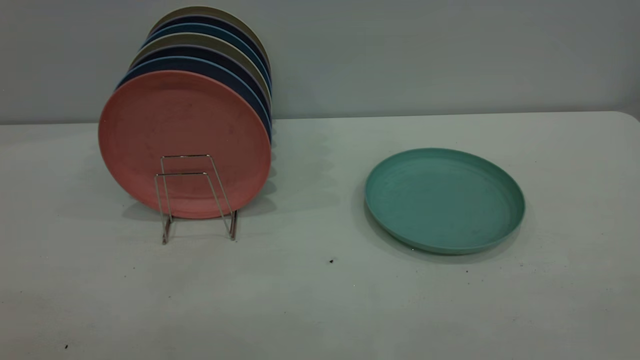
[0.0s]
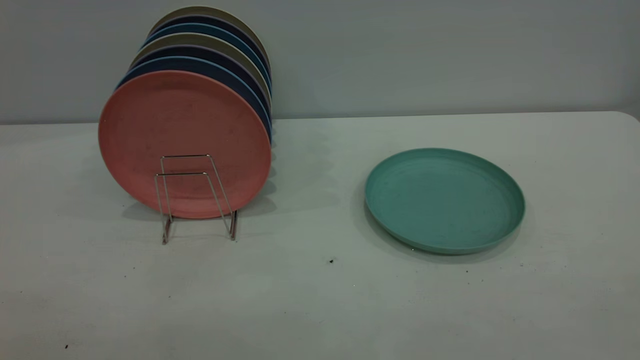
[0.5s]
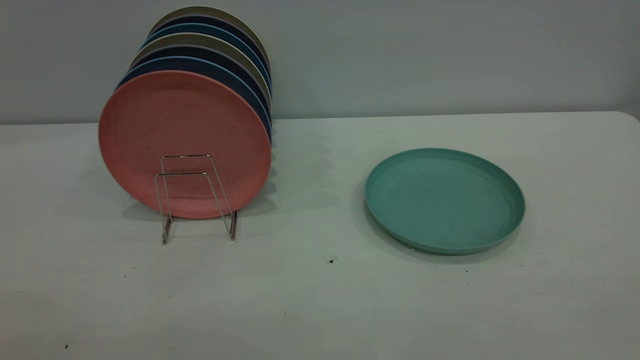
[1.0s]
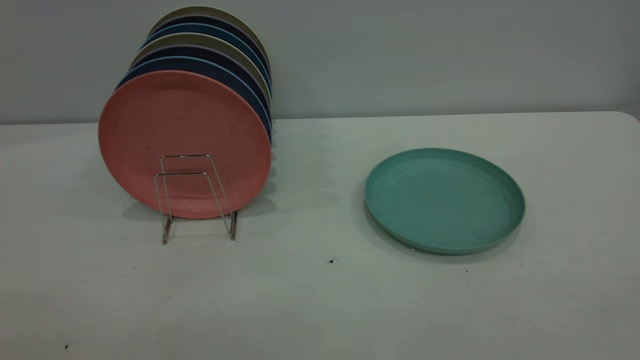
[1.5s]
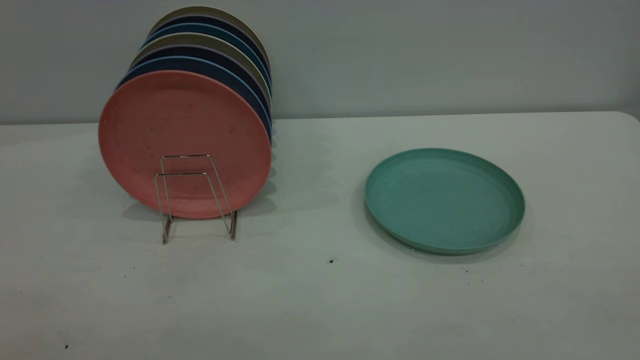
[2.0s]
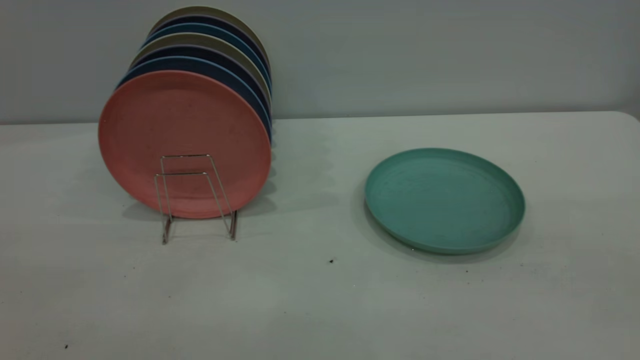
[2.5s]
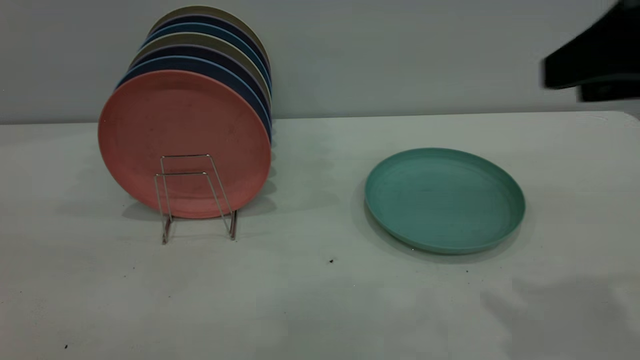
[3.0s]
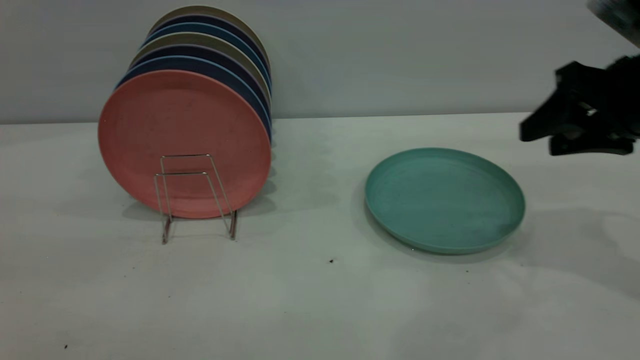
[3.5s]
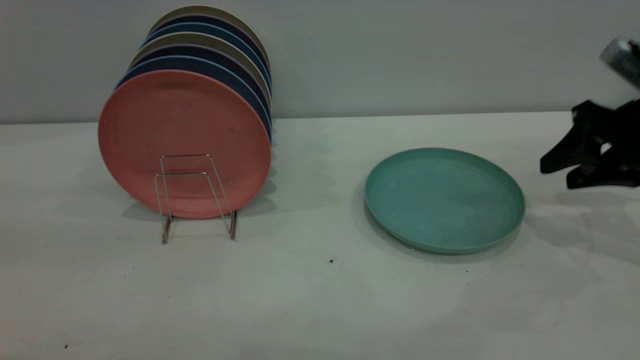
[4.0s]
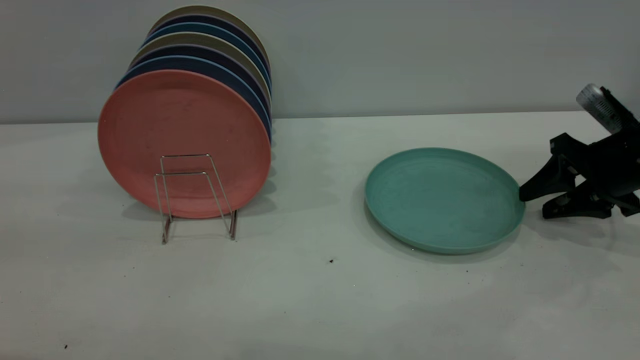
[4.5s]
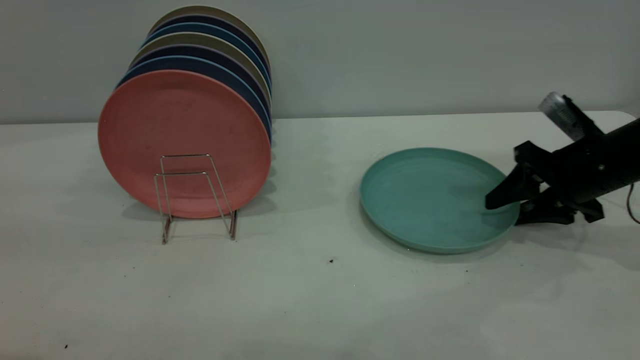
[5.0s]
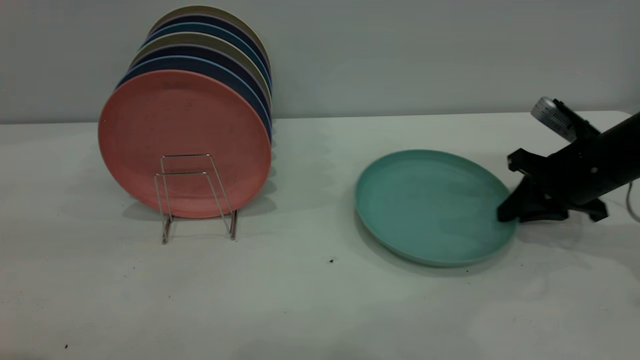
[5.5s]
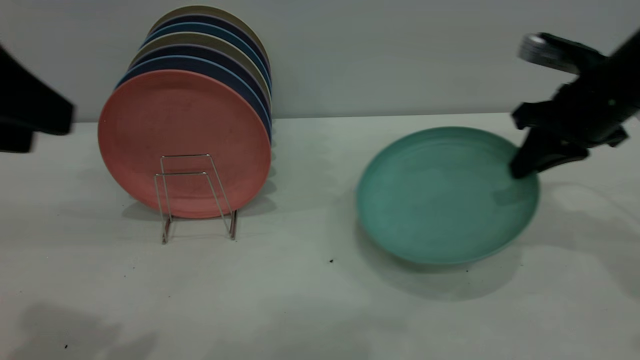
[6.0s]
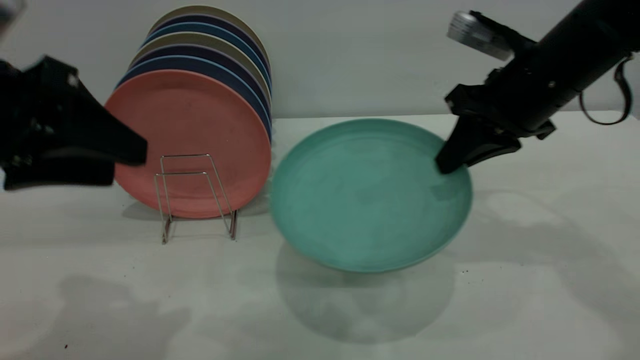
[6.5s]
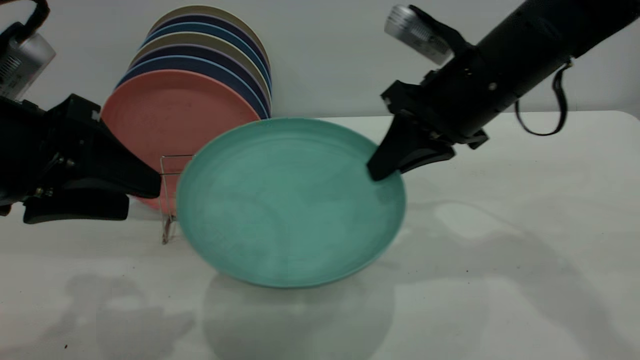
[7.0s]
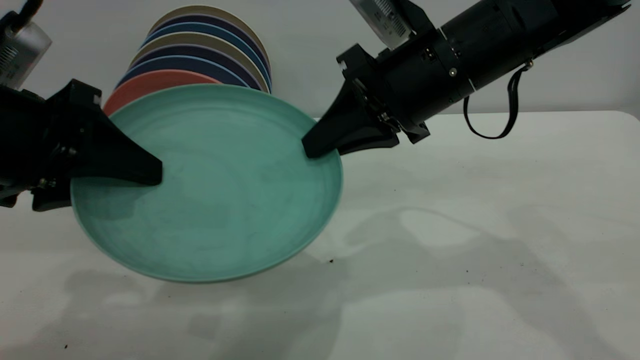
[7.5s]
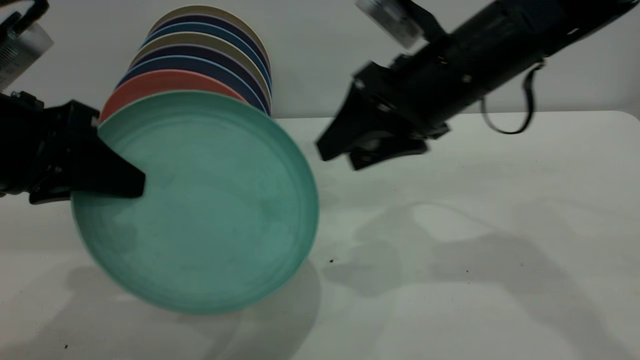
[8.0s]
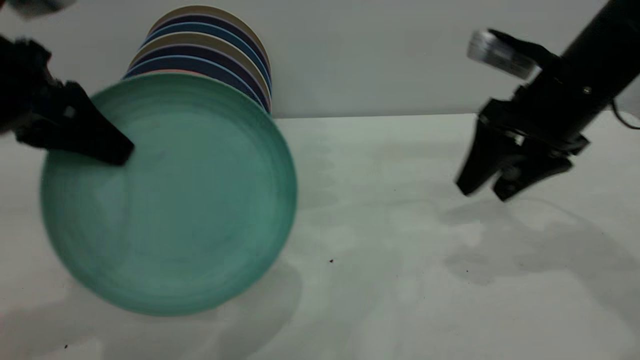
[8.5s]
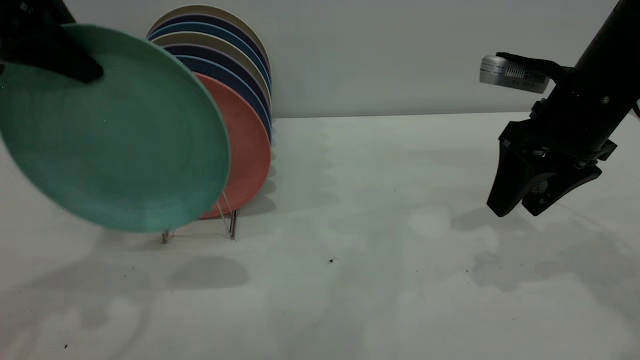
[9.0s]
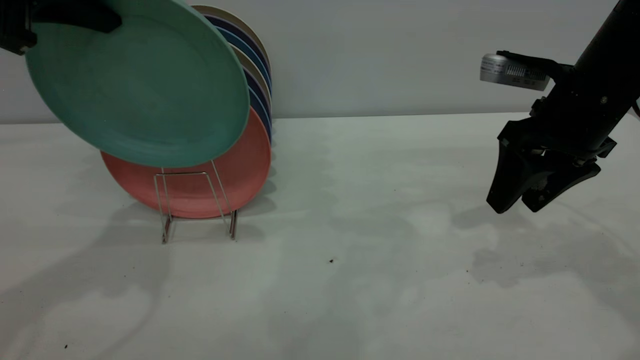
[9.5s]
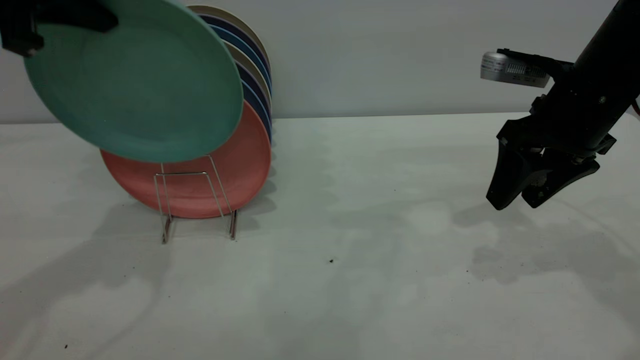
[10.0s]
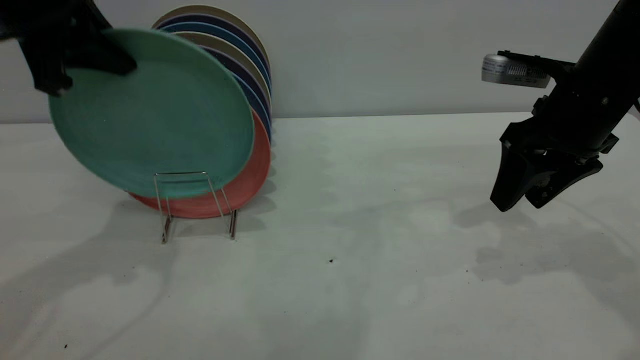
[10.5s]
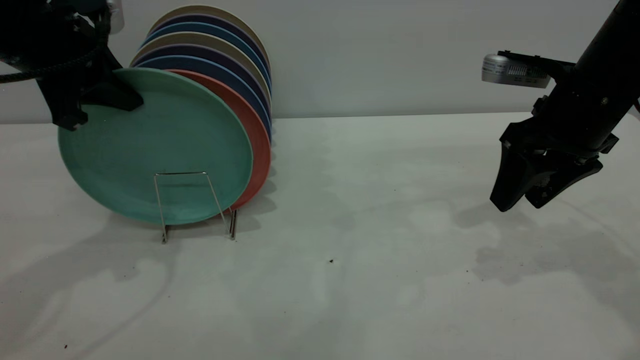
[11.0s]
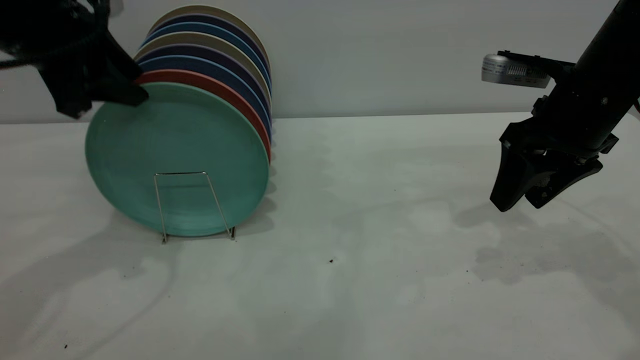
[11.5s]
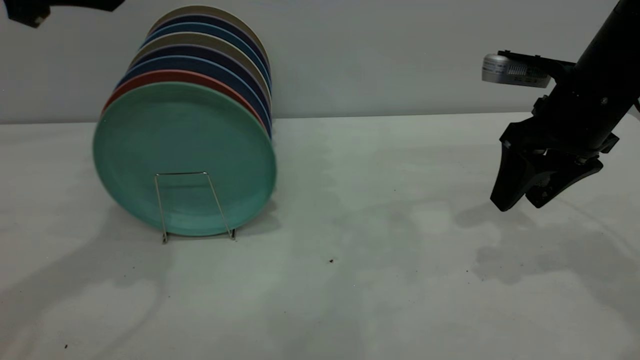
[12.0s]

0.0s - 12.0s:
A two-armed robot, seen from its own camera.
Task of the whole recording: the right gripper grasp the green plate, the right gripper pass the green plate to the left gripper, and the left gripper place the green plate on the plate rack.
Step, 0.0s - 5.5s: Pick up the plate with the right gripper.
Step, 6.5s - 7.5s: Pass the plate from the right gripper to the left gripper.
Step, 8.0s - 11.5s: Place the plate on the shelf.
2.0s - 4.0s: The right gripper shifts roughly 50 cm forward and downward.
4.0s - 6.0s: The left gripper moves approximately 5 cm. The right gripper shifts about 5 cm to the left, and closes.
6.0s - 8.0s: The left gripper goes approximately 10 cm downward, and closes. Meanwhile the right gripper is displaced to the left by roughly 15 cm, and opens.
8.0s - 10.0s: The right gripper travels to the right by about 10 cm; the left gripper is displaced upward and forward by approximately 15 cm.
10.0s - 12.0s: The left gripper moves about 5 cm downward and comes back, and opens up.

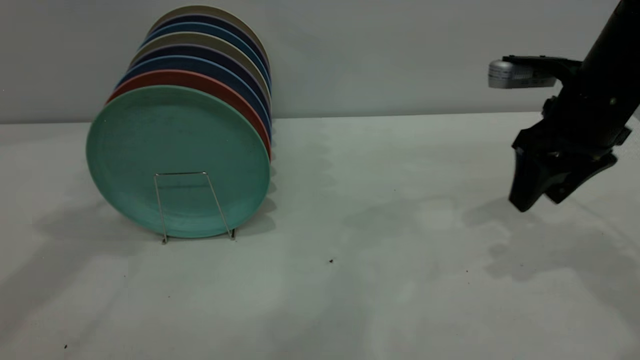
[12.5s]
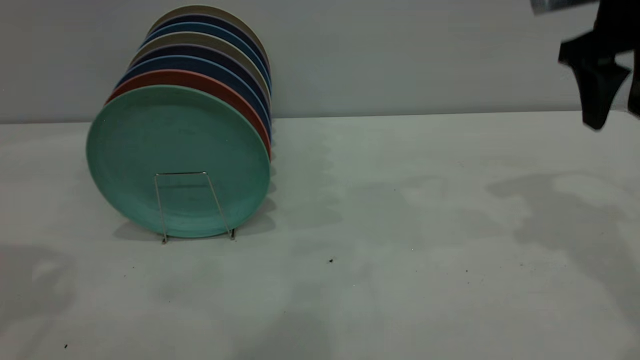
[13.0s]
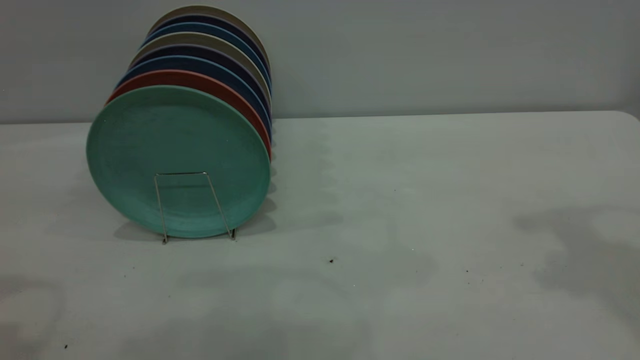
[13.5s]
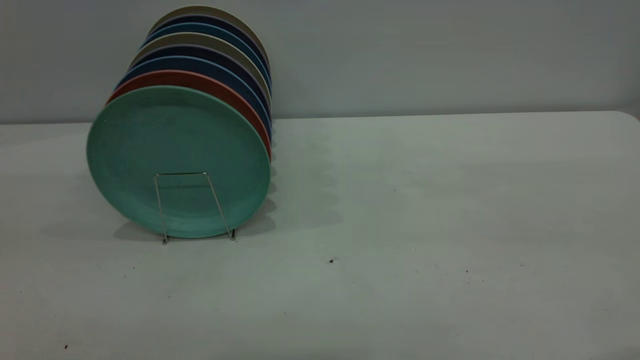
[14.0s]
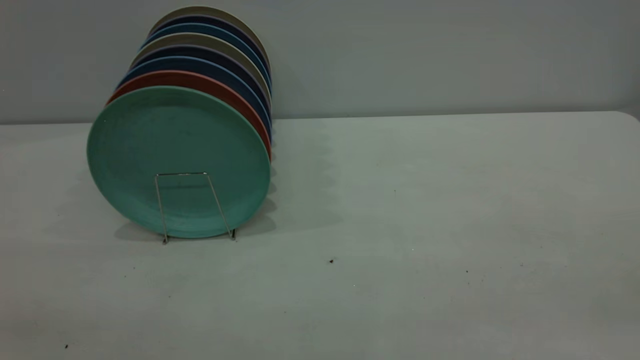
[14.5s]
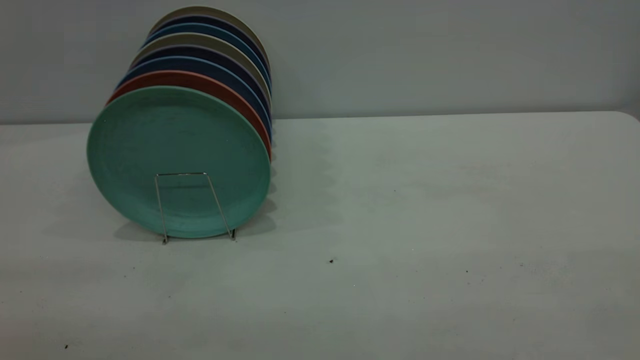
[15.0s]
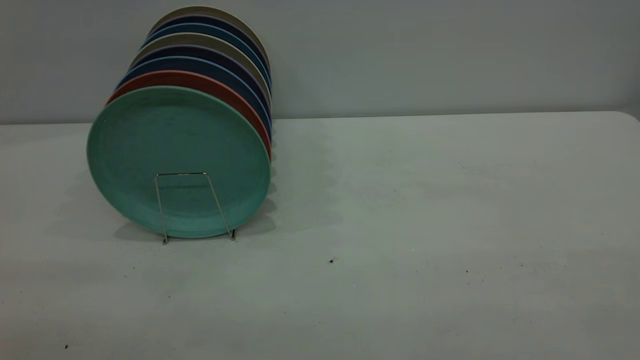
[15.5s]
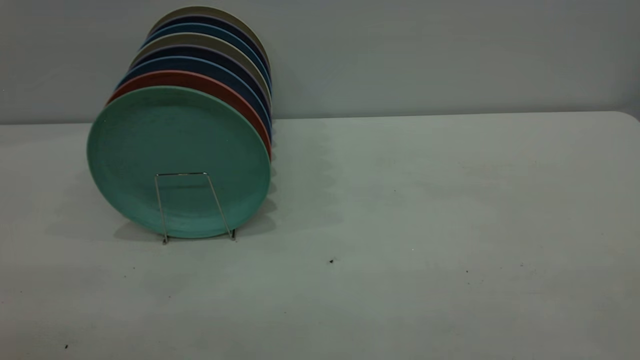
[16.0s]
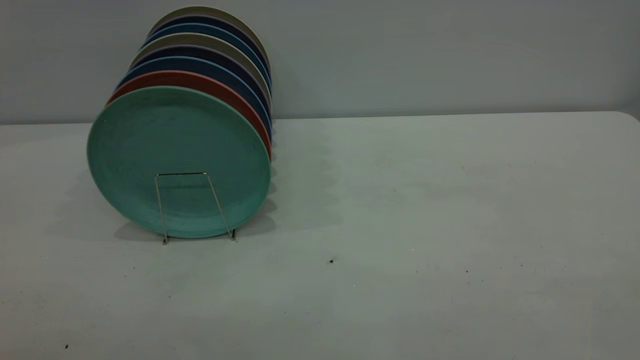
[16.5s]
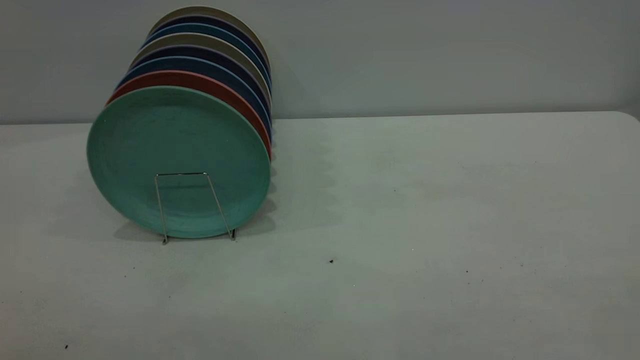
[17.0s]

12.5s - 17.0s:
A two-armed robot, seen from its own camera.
Task of the whole recording: the right gripper grasp the green plate, the right gripper pass the green plate to the left gripper, and the left gripper place the green plate on the plate rack.
12.5s - 14.5s: The right gripper shifts approximately 35 cm backward and upward.

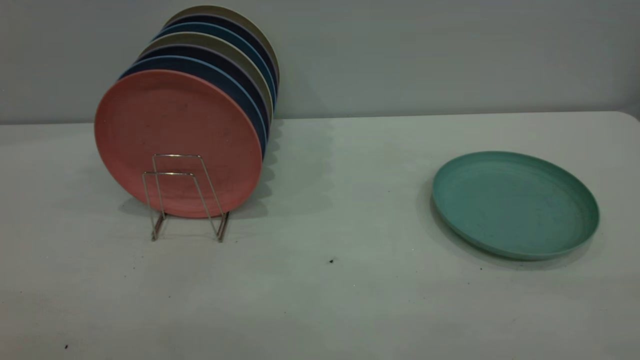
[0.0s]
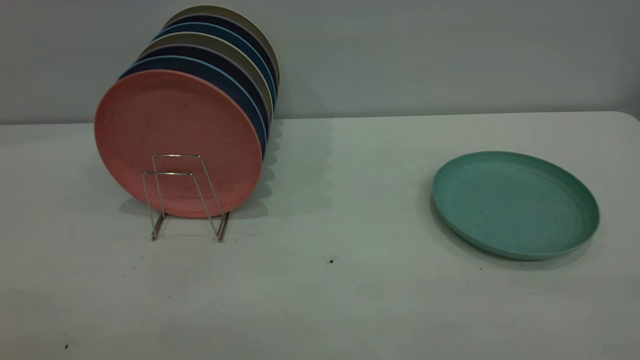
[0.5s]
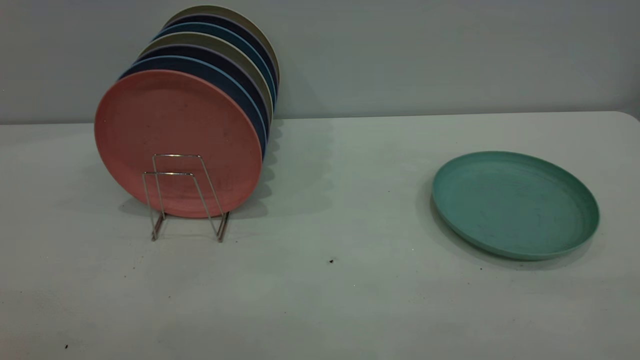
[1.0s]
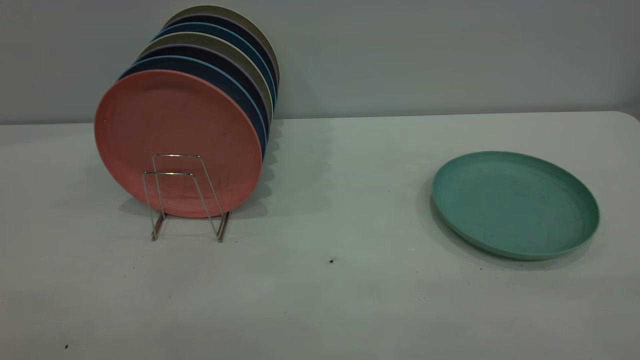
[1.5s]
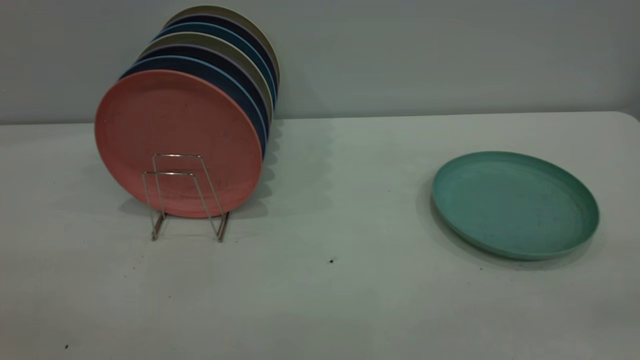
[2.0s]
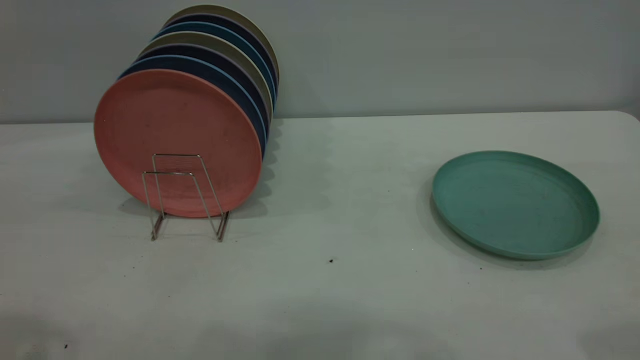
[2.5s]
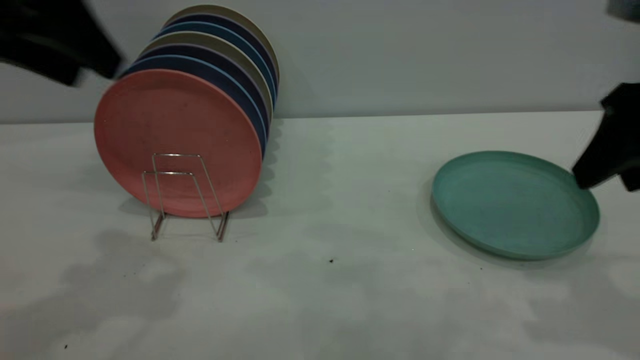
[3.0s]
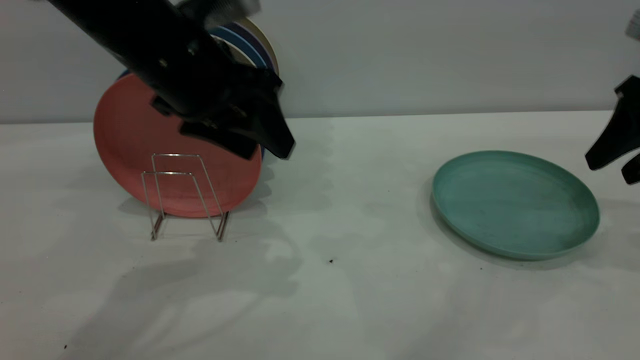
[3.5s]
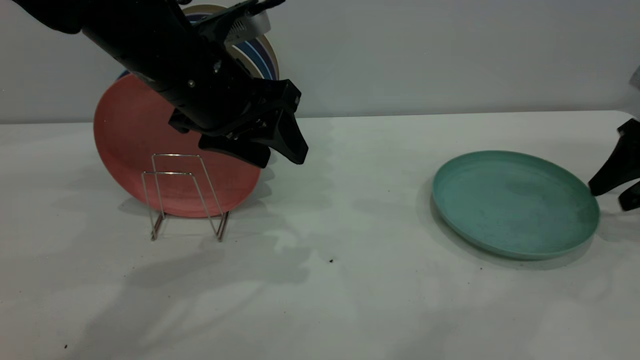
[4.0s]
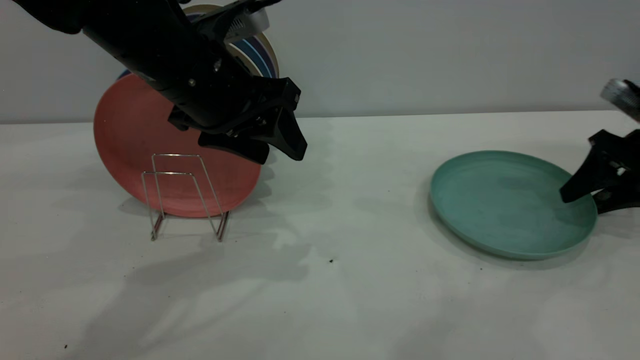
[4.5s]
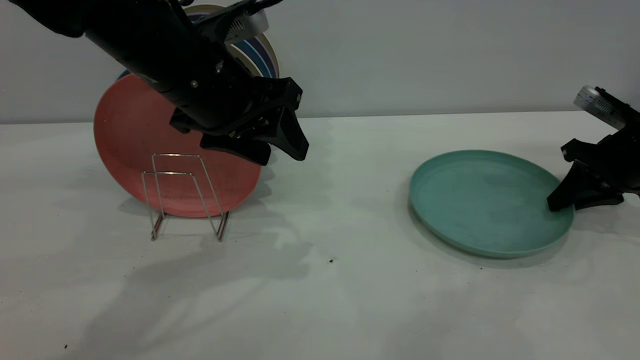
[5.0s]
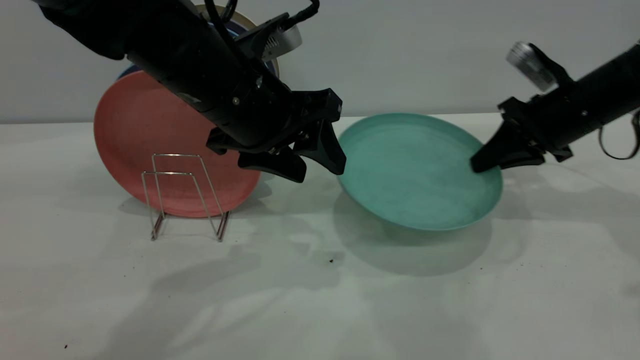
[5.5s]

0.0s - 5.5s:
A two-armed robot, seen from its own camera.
Task of the whole recording: the right gripper grasp the green plate, the right gripper pass the green plate to the left gripper, and the left gripper place the green plate on the plate rack.
Step, 0.0s - 5.0s: Pick up the plate with the right gripper.
2.0s - 3.5s: The right gripper shifts some 35 cm forward and downward. The left gripper goes approximately 40 cm forward, to the right and downward.
3.5s - 5.5s: The right gripper moves forward, to the left and downward, roughly 15 cm, and closes its fingers.
